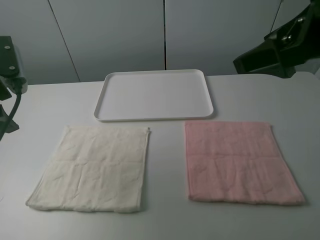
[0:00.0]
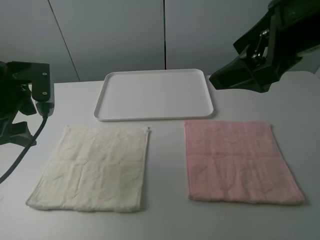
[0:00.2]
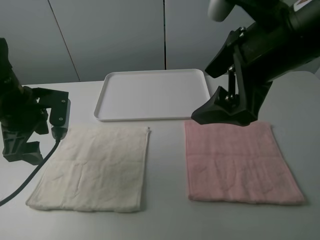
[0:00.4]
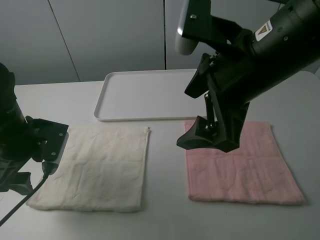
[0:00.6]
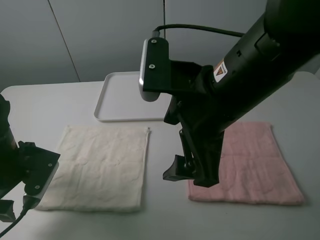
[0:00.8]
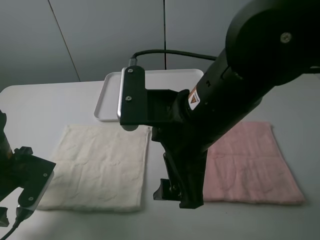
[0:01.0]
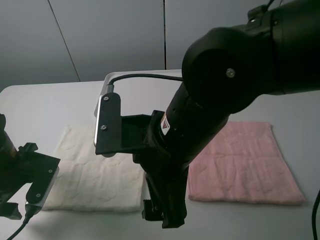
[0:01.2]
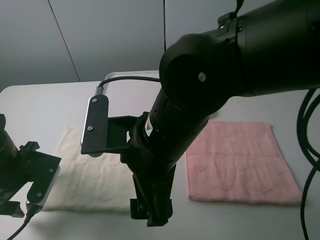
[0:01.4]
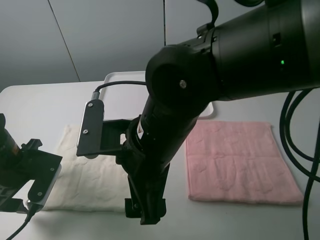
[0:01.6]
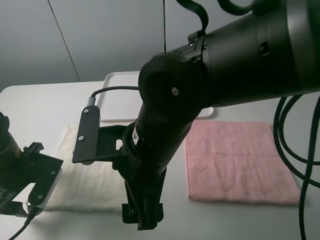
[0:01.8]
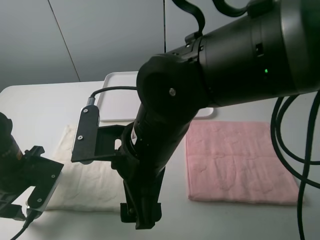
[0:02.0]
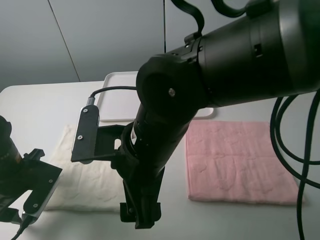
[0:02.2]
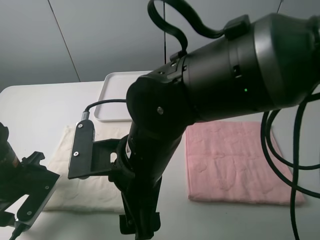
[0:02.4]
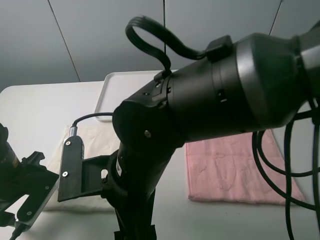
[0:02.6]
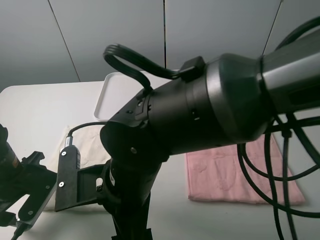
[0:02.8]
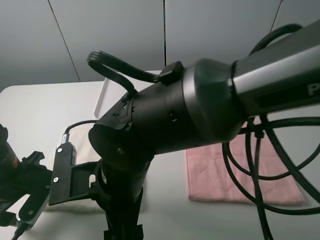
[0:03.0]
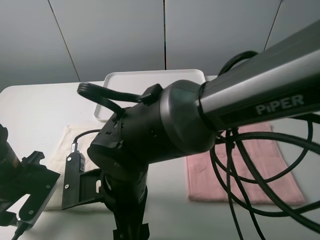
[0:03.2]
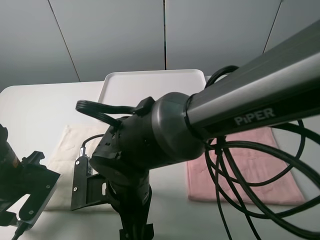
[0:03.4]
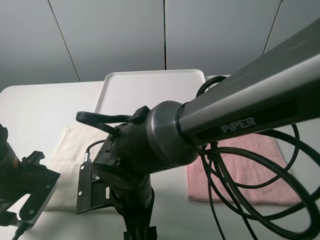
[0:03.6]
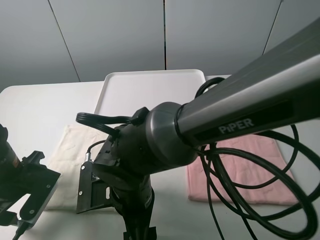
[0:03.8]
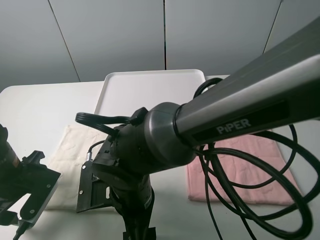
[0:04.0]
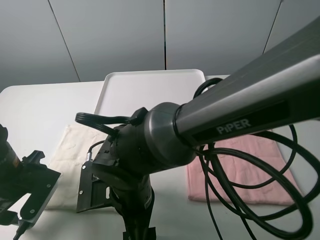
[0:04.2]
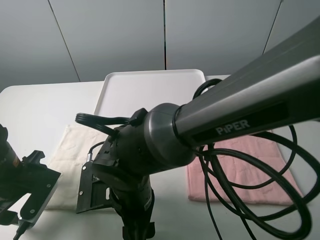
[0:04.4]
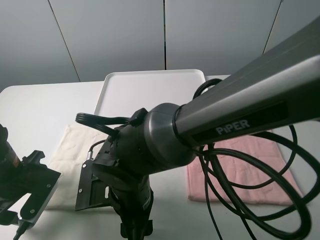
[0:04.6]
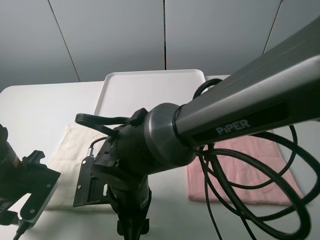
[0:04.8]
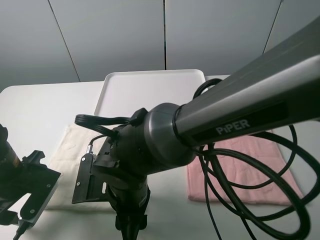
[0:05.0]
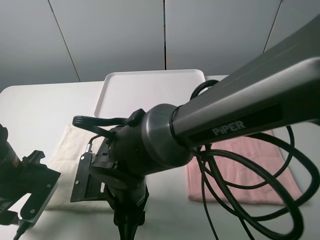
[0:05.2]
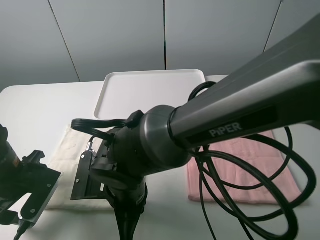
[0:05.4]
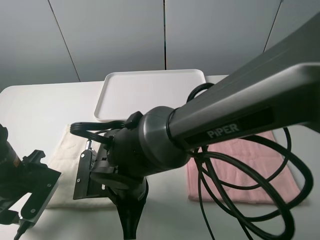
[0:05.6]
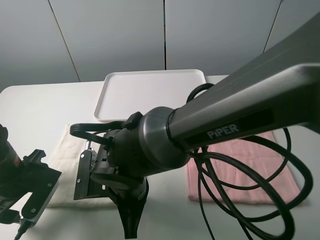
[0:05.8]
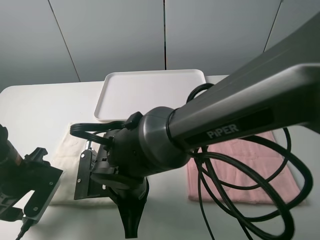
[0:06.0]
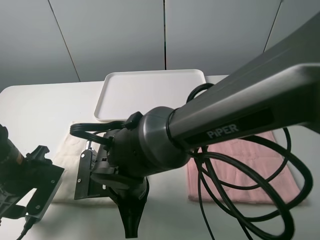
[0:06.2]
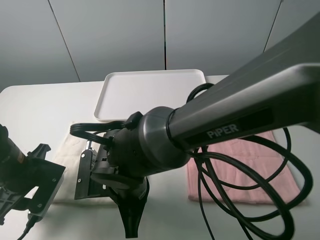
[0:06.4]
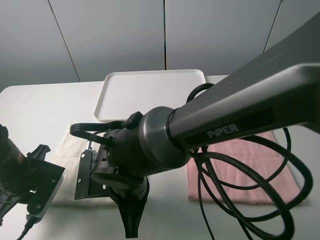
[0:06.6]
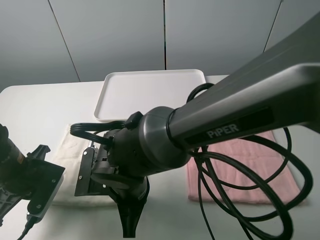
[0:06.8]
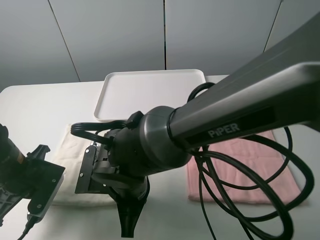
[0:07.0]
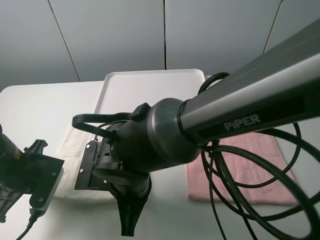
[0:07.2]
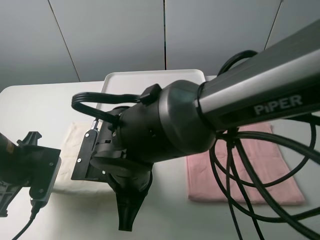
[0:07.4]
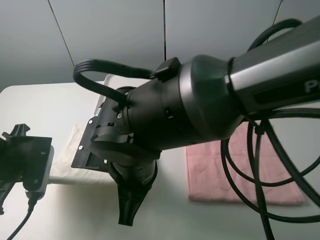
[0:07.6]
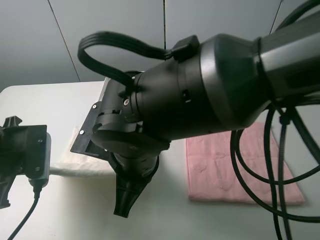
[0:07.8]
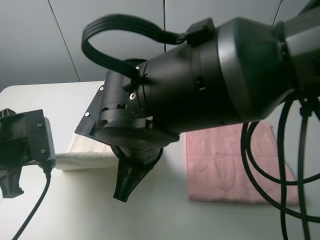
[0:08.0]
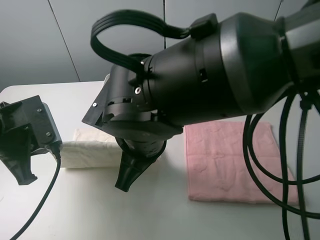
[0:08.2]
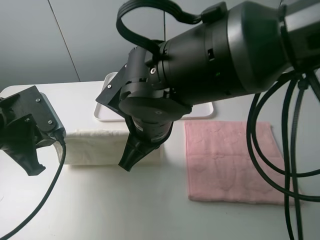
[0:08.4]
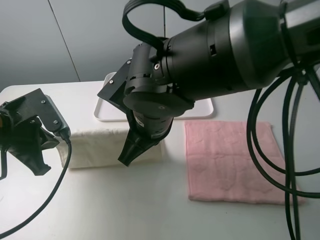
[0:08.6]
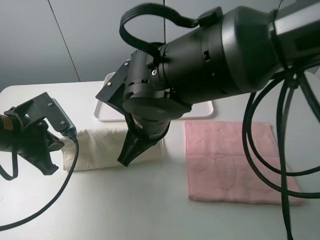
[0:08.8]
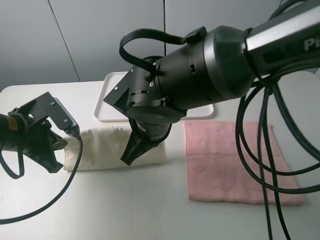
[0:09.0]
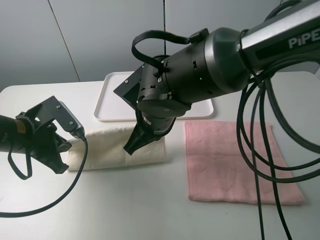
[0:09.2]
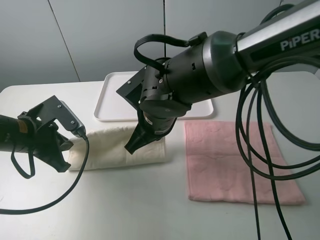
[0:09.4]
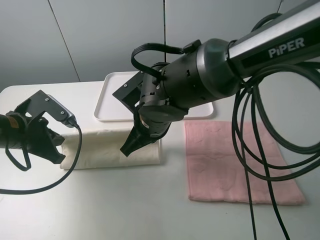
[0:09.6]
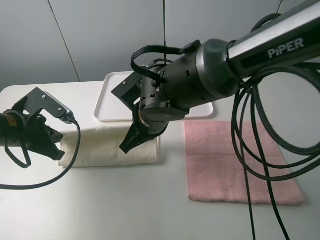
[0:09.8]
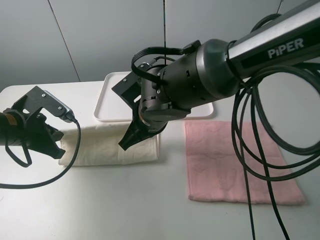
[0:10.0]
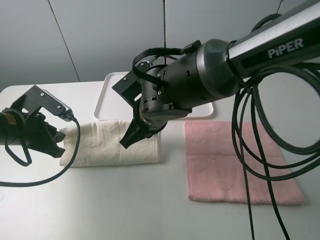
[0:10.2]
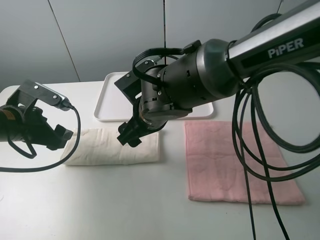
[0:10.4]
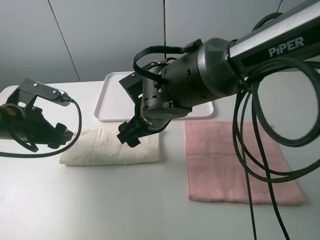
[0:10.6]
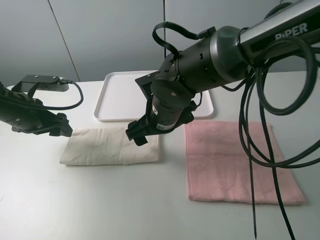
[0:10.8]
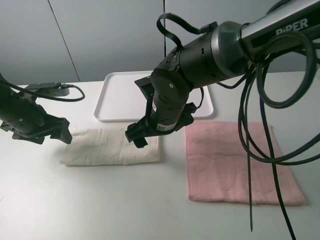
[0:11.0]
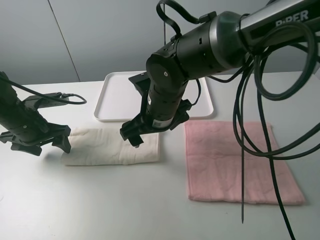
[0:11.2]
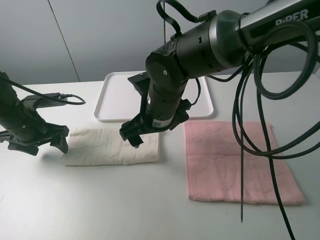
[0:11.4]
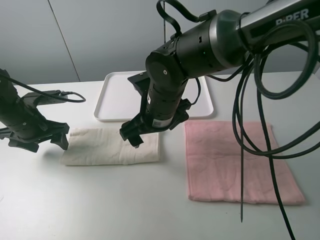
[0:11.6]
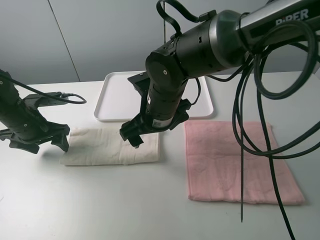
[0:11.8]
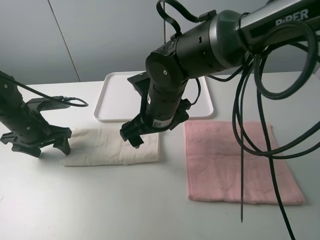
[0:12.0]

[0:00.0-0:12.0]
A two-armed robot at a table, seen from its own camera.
Task of the whole recording: fold one of the towels by two grippers and place it on the tray,then fold another towel by two grippers and place it on the folded towel.
Step, 0:00.0 to 0:07.0: Grasp the white towel with the left gripper.
Step, 0:07.4 to 0:10.2: Fold the white towel upwards with the left gripper.
0:00.0 to 0:01.6: The right gripper heads to the left and downward, covering some 25 cm. The left gripper goes roughly 15 cm downward.
0:01.6 to 0:03.0: The right gripper moves roughly 5 cm.
0:03.0 to 0:04.4: The right gripper moves downward, about 5 cm.
0:04.4 to 0:06.0: The right gripper closes its fingers.
0:06.0 to 0:07.6: Both grippers travel together upward, about 5 cm. The left gripper closes its fingers.
0:07.6 to 0:09.0: The right gripper travels forward by approximately 5 cm.
0:09.0 to 0:10.4: The right gripper opens, while the left gripper opens.
0:10.4 to 0:12.0: The left gripper heads forward, covering approximately 5 cm.

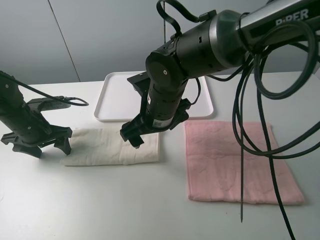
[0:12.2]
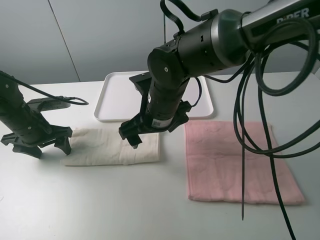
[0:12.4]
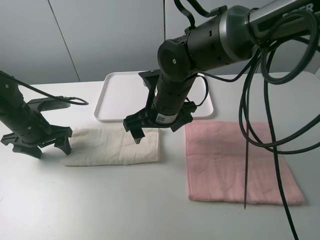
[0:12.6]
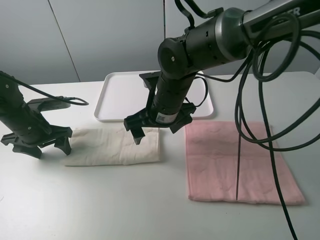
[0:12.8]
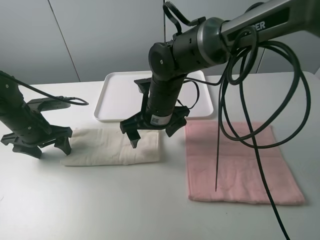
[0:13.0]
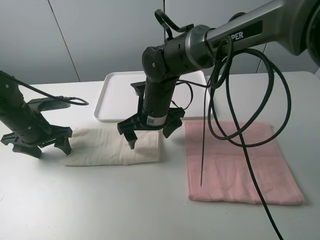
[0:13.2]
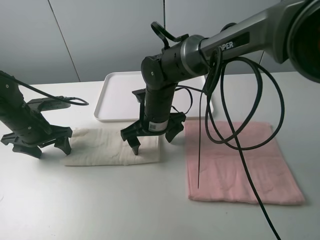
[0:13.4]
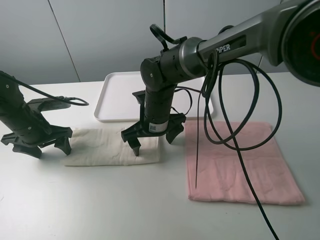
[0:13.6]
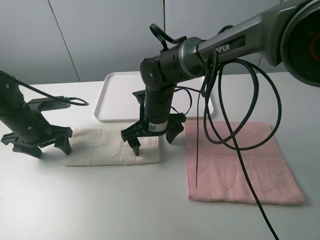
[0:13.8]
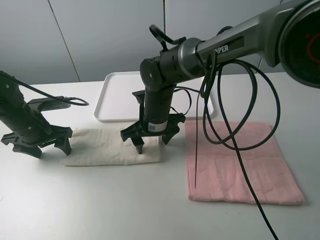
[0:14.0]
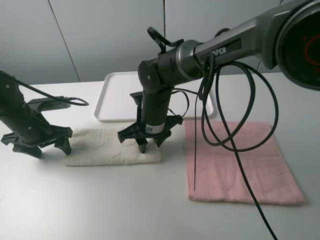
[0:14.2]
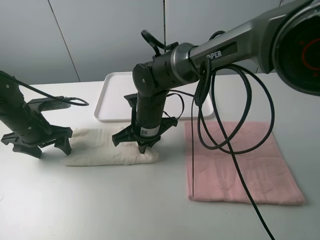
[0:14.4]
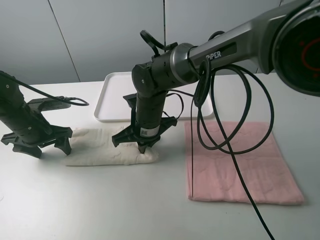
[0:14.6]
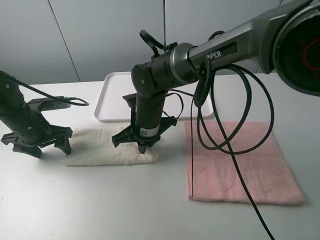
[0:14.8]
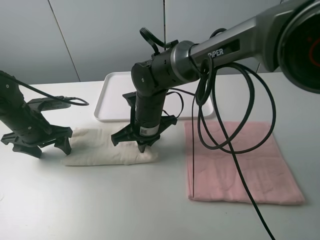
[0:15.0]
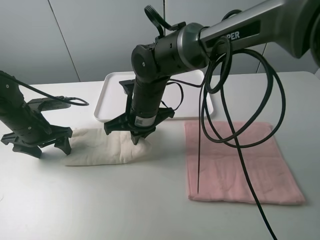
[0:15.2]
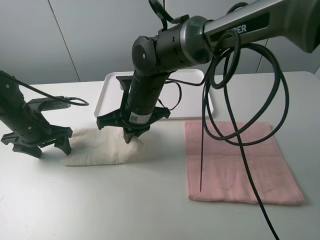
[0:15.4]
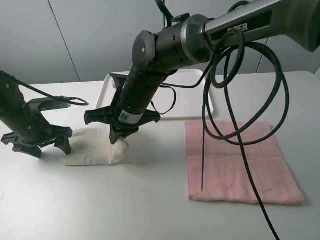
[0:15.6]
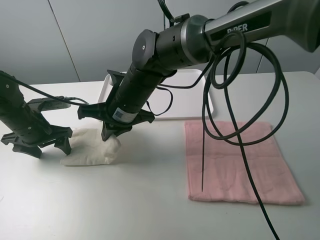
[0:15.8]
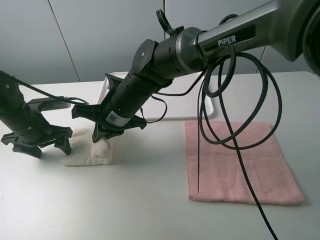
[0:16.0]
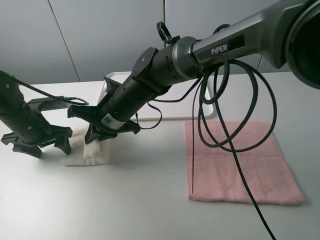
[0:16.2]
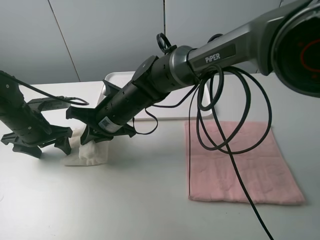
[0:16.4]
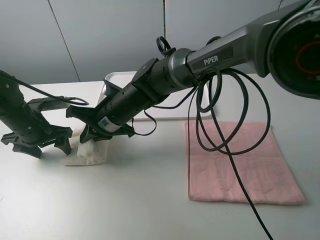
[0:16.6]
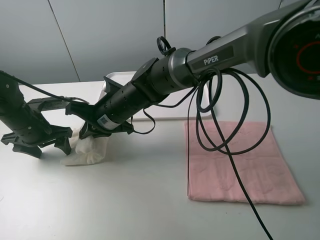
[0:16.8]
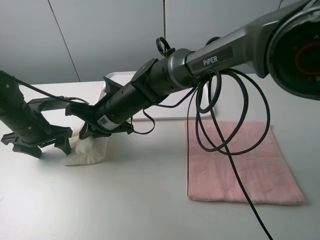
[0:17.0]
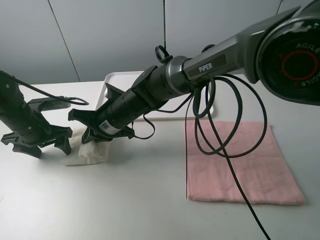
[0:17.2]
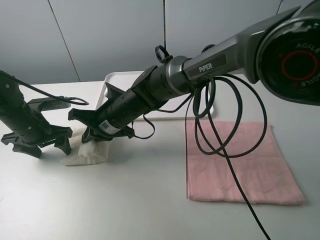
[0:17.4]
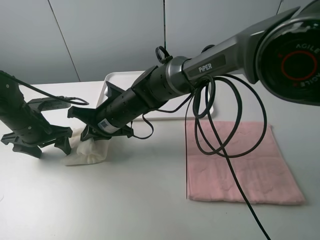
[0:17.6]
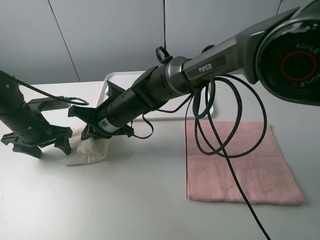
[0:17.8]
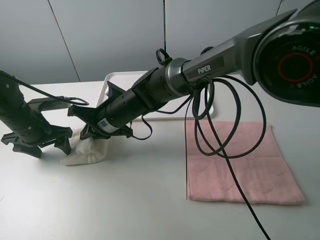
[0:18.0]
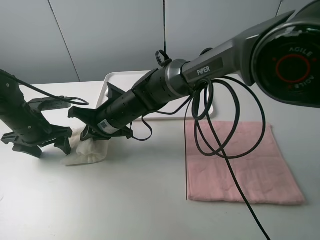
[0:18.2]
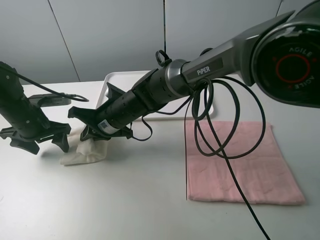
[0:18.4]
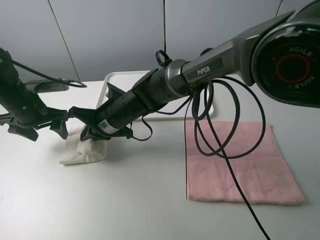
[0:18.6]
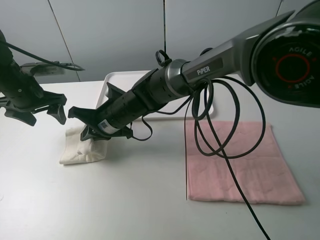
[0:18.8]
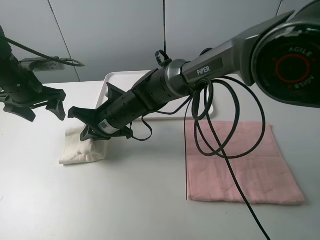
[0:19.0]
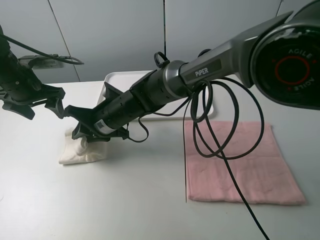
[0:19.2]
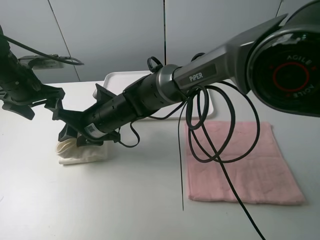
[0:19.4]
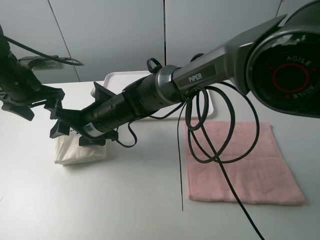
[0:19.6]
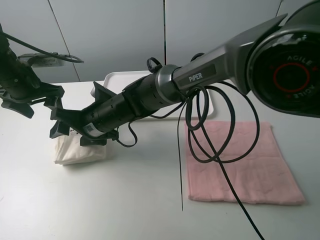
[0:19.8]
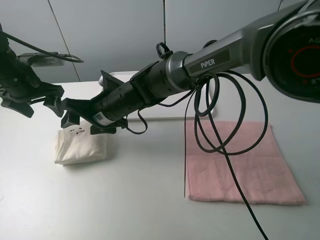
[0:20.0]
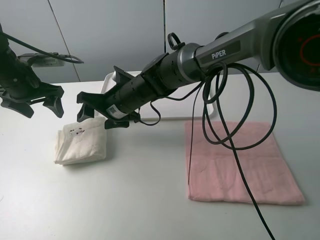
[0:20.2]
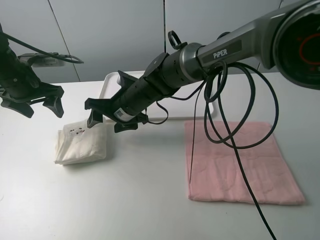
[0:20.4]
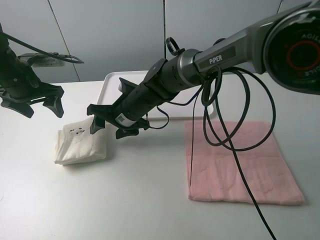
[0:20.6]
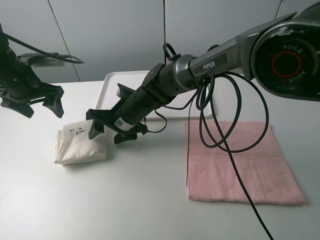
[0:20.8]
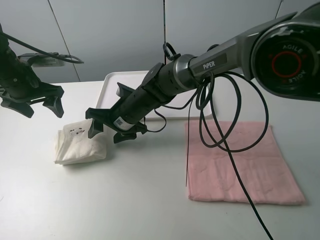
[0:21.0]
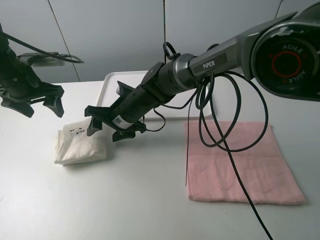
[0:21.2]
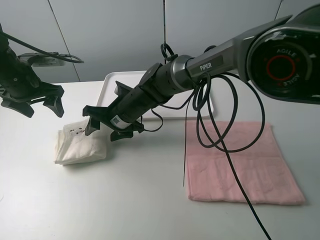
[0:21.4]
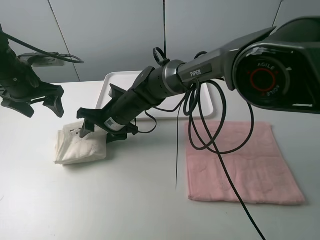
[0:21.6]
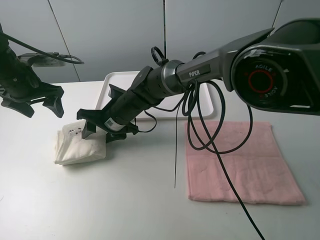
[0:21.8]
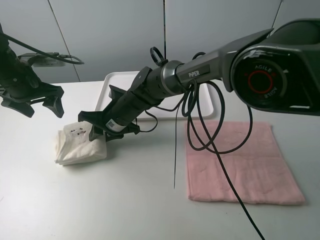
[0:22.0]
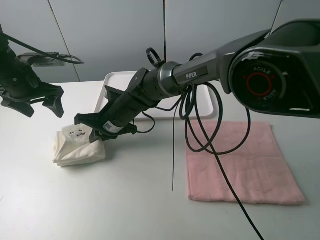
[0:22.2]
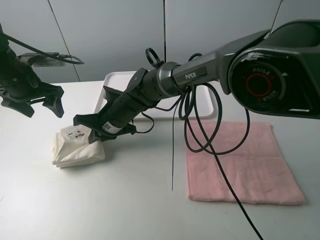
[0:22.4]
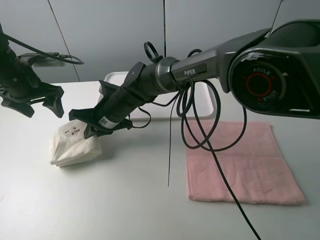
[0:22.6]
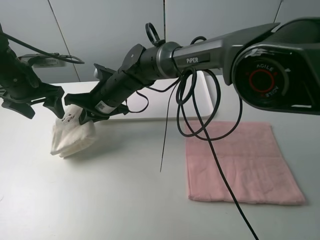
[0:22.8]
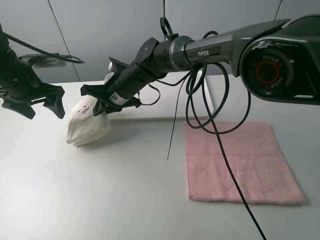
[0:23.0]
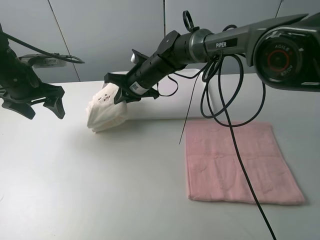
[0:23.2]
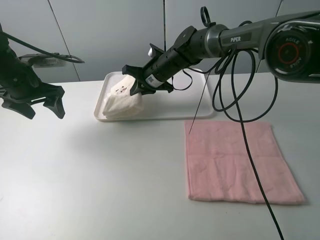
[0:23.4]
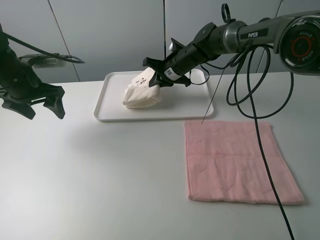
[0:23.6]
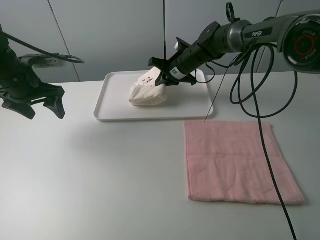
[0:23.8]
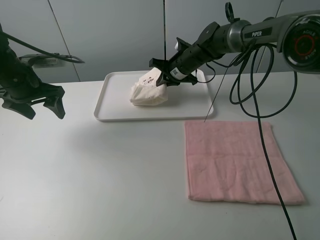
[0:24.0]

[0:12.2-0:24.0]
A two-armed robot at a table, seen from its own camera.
Task of the whole recording: fold one of the towels by two grippers and place it on the tray,then fold another towel by two grippers and place it on the folded towel.
Step, 0:13.0 to 0:14.8: Grasp the white towel with the right gripper.
Step, 0:15.0 to 0:20.0: Fold the white towel from right to left with right gripper.
Step, 0:20.2 to 0:22.2: Grasp the white towel with the right gripper.
0:12.2 to 0:13.6: The right gripper heads downward, covering about 5 cm.
0:13.6 to 0:15.2: The right gripper closes its fingers.
0:15.2 to 0:16.6: The right gripper is displaced to the left by roughly 5 cm.
0:16.6 to 0:18.2: There are only small adjustments of the grippers.
0:18.2 to 0:19.6: The left gripper travels upward by roughly 10 cm, while the right gripper opens its fingers.
0:19.6 to 0:21.0: The right gripper changes place by some 5 cm.
0:21.0 to 0:22.6: The right gripper closes its fingers.
0:22.6 to 0:24.0: The right gripper shifts some 25 cm to the right and forward.
